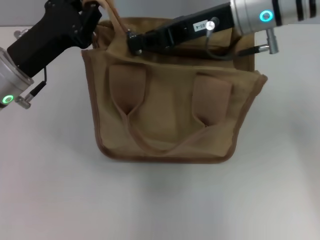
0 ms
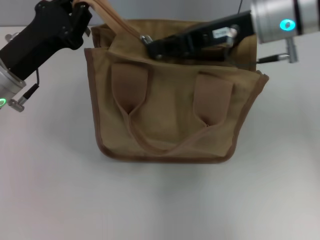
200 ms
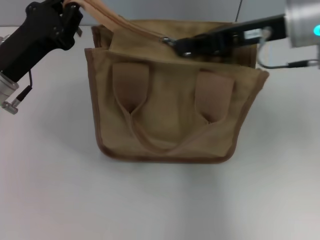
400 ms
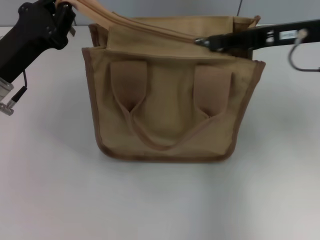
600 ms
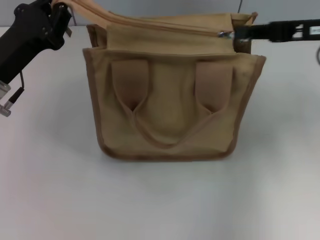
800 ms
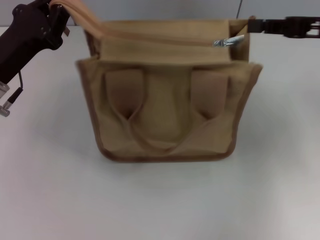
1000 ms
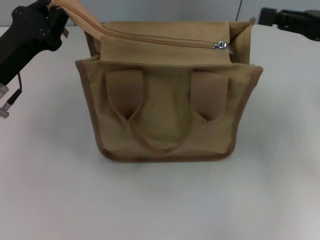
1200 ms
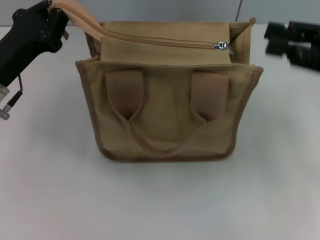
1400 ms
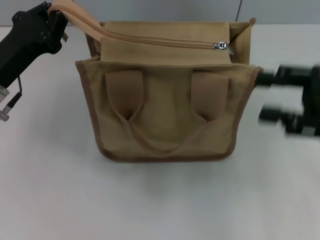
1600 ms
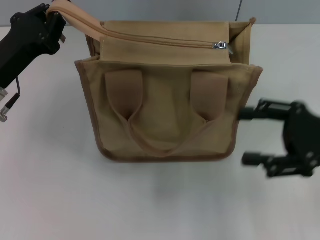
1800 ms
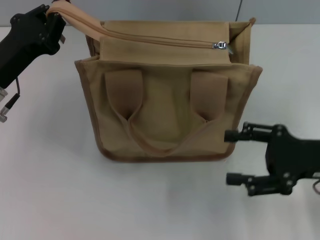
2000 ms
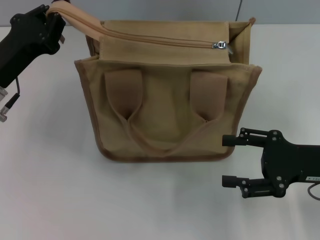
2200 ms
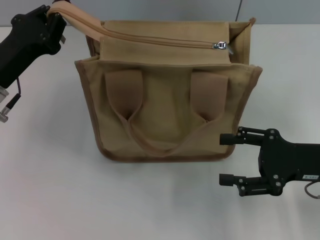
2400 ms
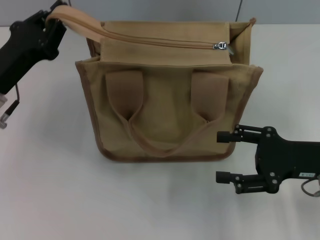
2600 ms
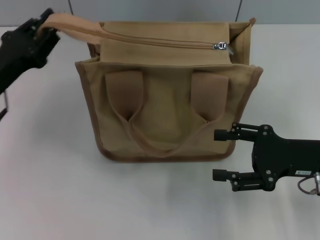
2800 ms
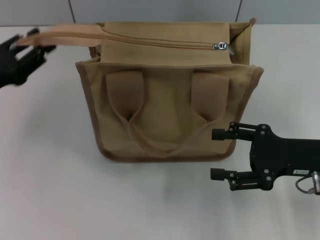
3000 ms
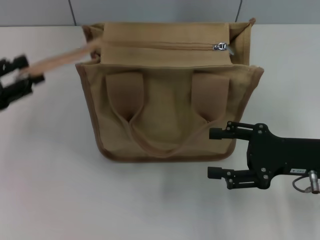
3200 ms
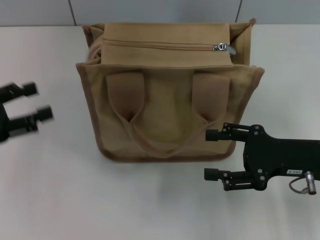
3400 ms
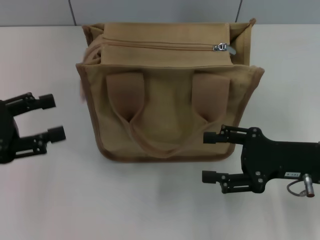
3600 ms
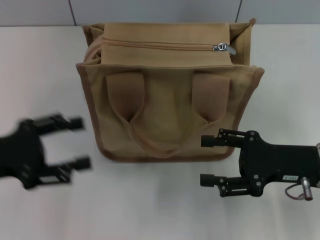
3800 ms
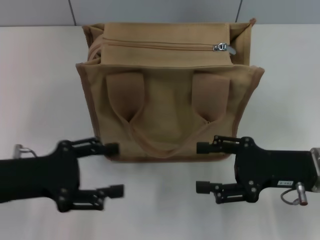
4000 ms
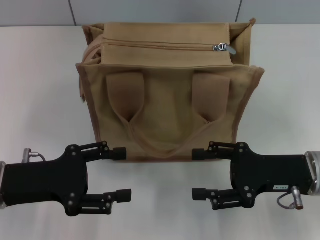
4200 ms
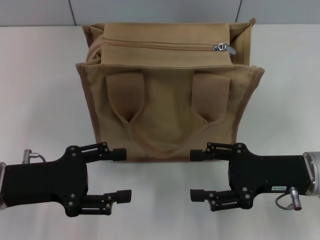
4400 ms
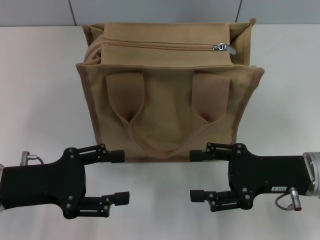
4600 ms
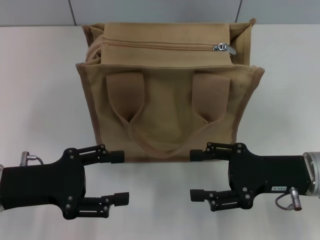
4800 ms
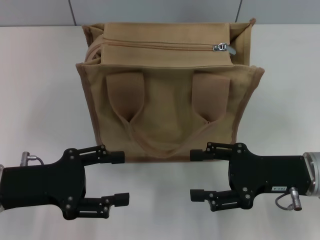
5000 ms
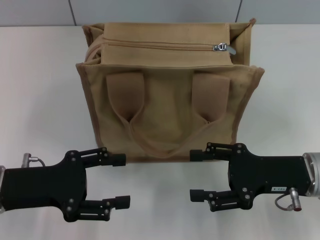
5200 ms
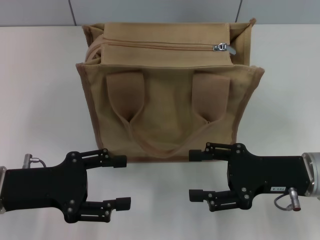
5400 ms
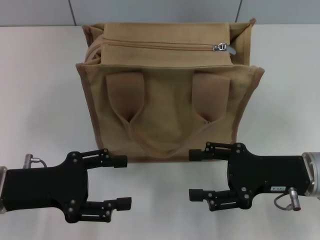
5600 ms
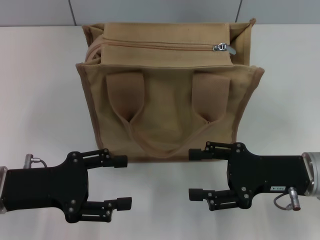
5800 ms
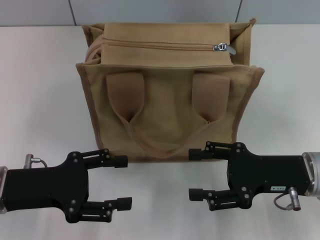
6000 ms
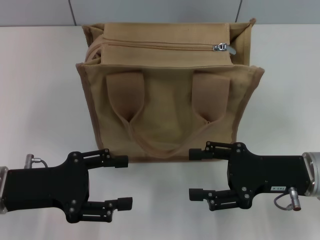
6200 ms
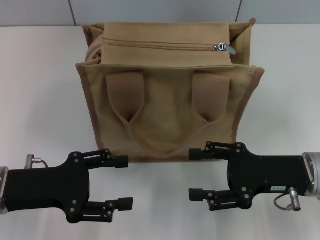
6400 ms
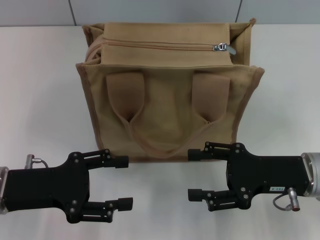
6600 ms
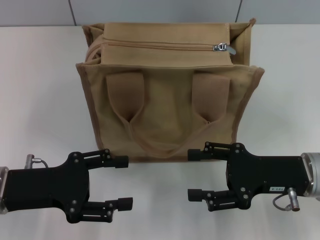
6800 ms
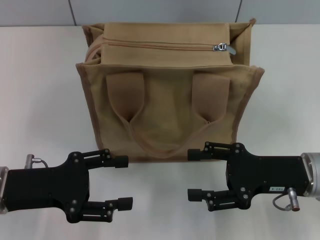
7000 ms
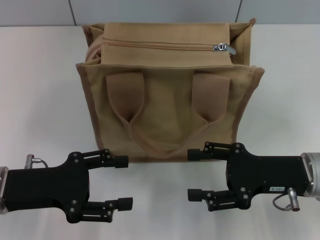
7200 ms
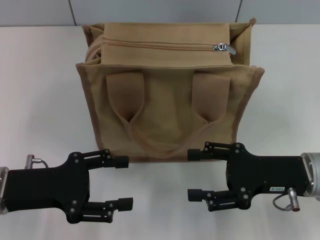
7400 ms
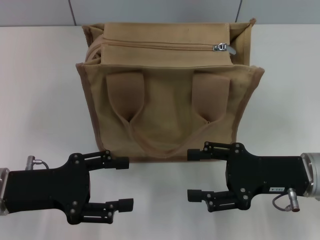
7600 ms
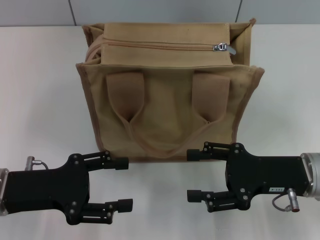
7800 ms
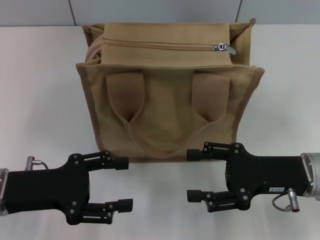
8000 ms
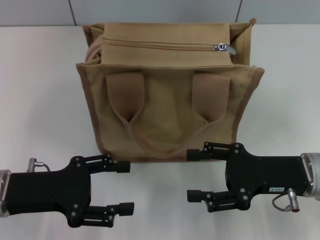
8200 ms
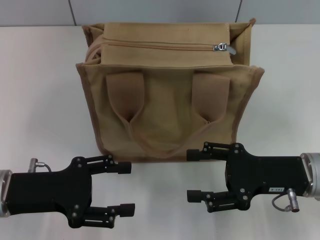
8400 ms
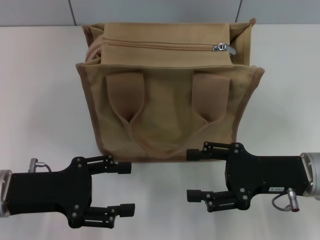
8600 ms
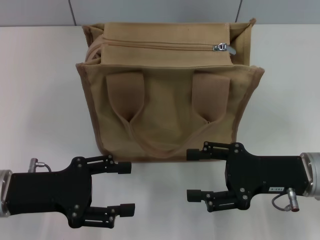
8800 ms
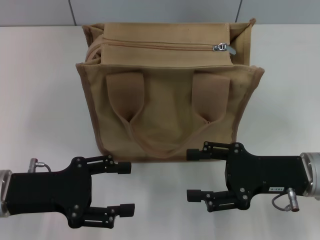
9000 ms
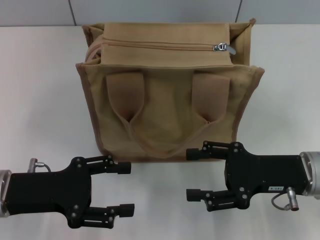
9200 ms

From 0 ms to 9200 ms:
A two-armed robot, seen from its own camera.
Step, from 1200 ms to 3200 ms: Grab the zipper with your left hand.
From 0 ms to 1600 ms: The right gripper goes approximately 20 cm to the right and backward, and opens its fingers.
From 1600 ms to 3000 ms: The left gripper is displaced to the left by approximately 5 cm. Meanwhile the right gripper goes roughly 5 cm downward, and opens its fingers.
From 3000 ms to 4600 ms: The left gripper heads backward and to the right, covering roughly 10 cm, and opens.
From 4600 ms to 9200 ms: Neither gripper changes place.

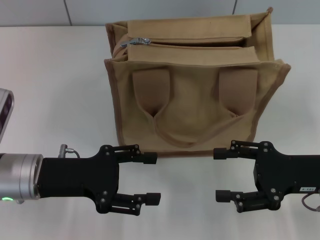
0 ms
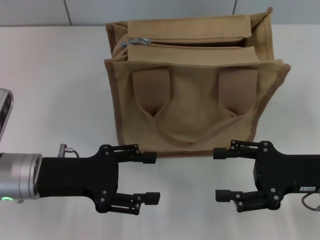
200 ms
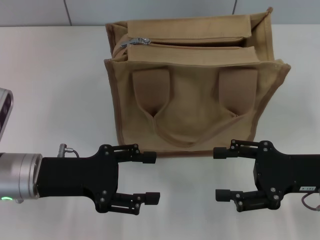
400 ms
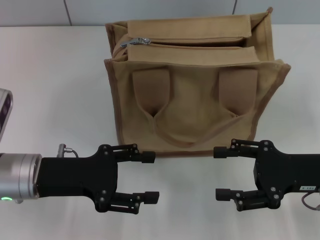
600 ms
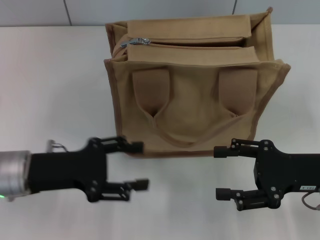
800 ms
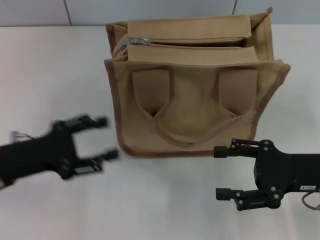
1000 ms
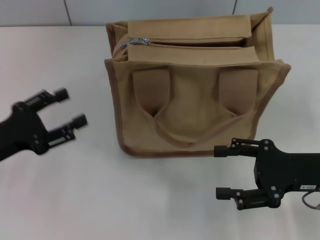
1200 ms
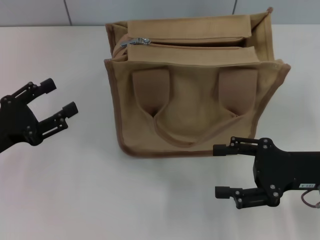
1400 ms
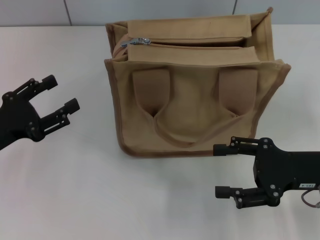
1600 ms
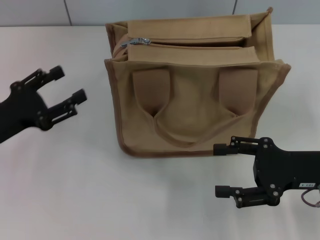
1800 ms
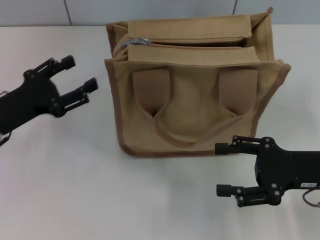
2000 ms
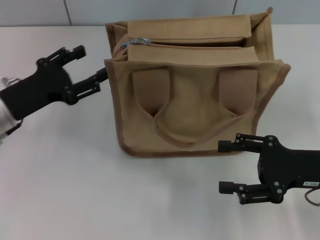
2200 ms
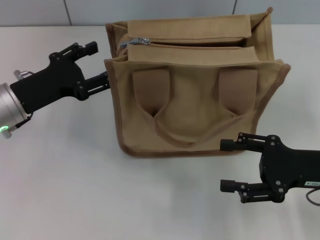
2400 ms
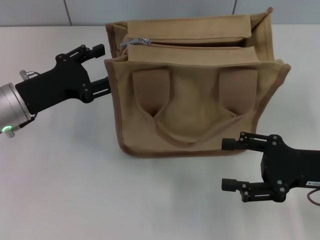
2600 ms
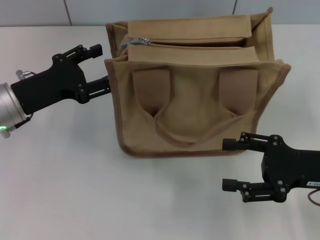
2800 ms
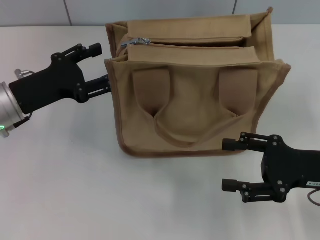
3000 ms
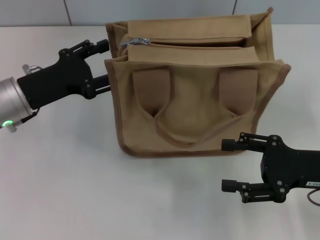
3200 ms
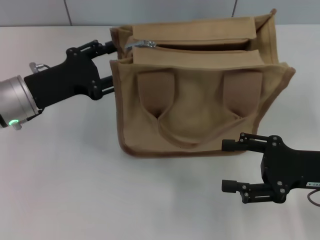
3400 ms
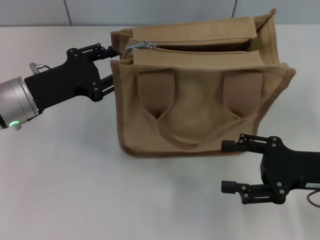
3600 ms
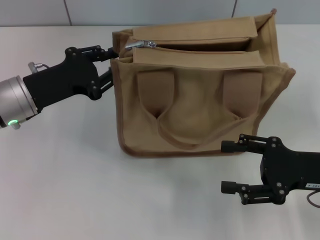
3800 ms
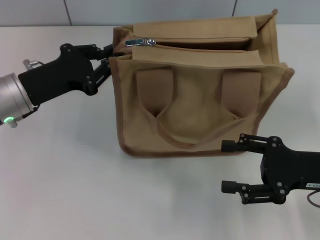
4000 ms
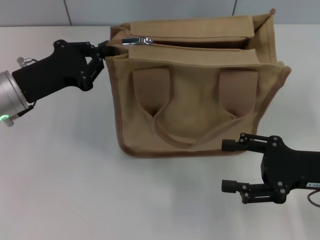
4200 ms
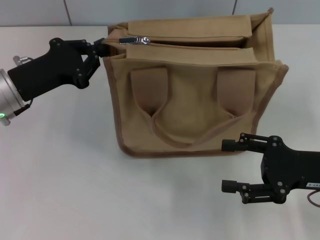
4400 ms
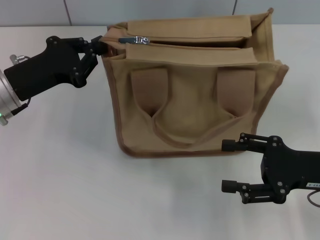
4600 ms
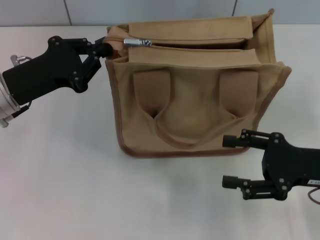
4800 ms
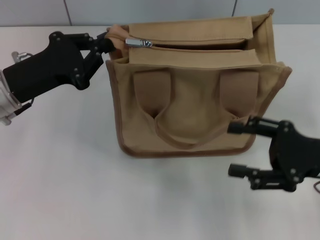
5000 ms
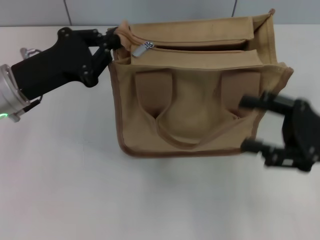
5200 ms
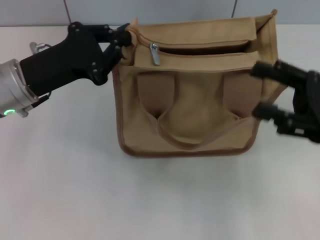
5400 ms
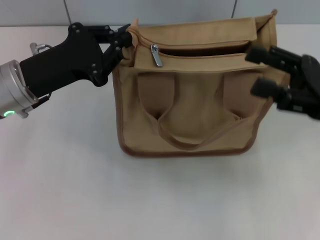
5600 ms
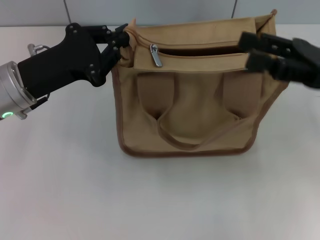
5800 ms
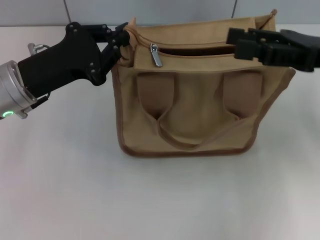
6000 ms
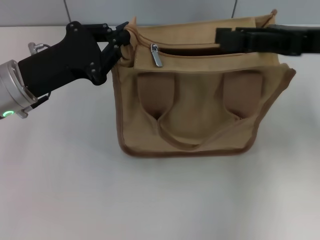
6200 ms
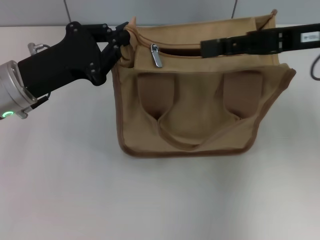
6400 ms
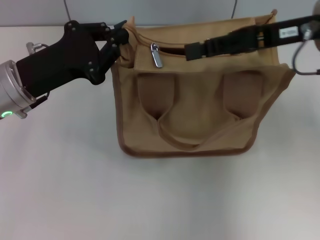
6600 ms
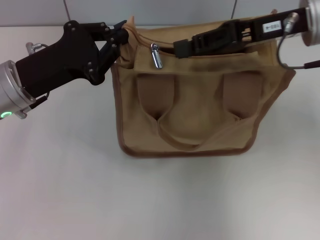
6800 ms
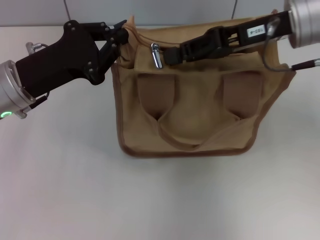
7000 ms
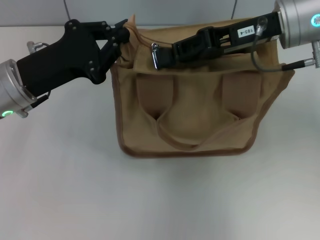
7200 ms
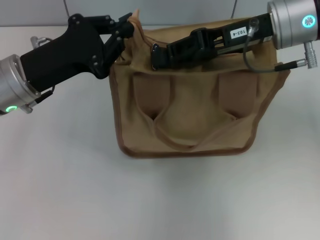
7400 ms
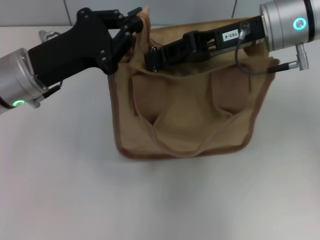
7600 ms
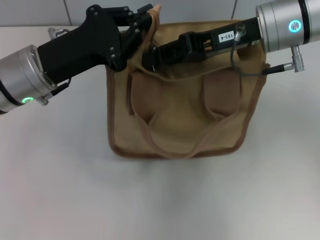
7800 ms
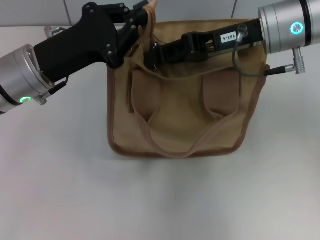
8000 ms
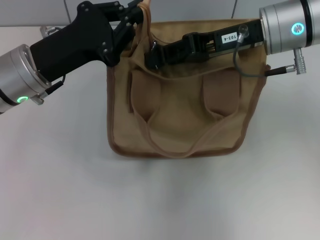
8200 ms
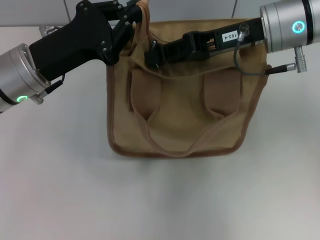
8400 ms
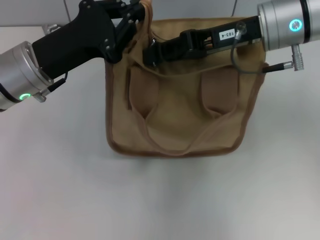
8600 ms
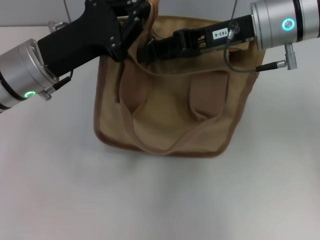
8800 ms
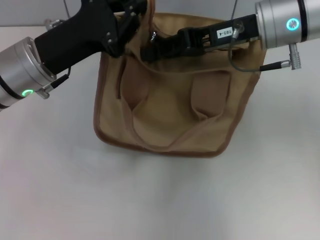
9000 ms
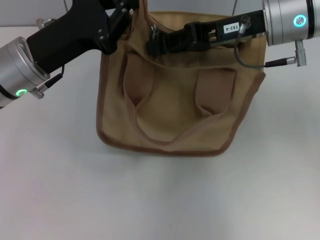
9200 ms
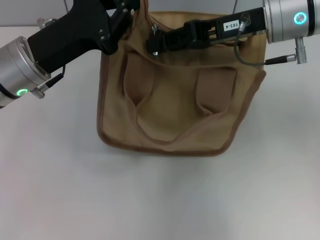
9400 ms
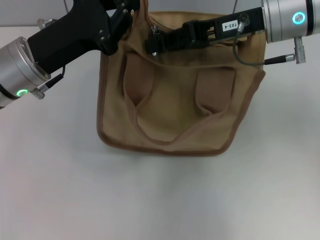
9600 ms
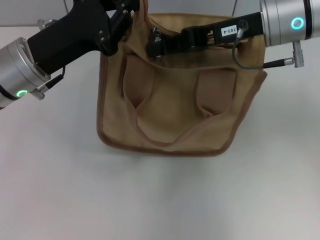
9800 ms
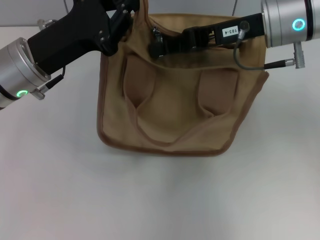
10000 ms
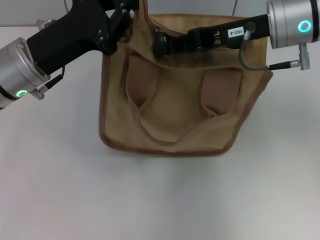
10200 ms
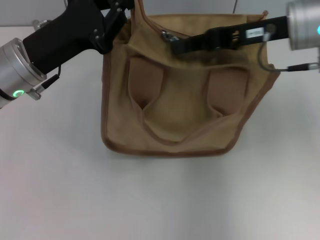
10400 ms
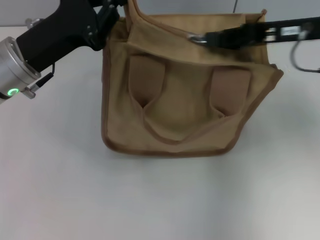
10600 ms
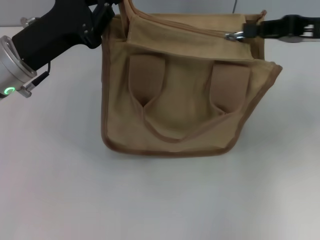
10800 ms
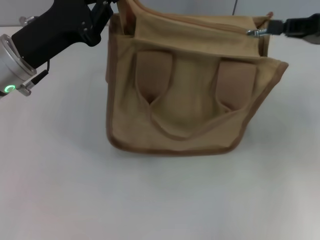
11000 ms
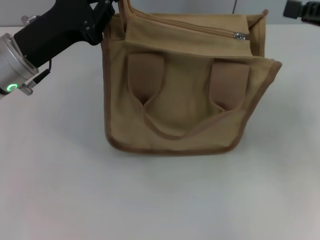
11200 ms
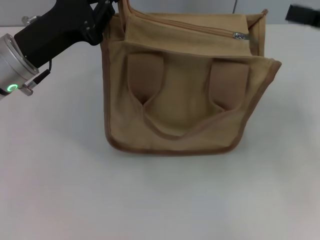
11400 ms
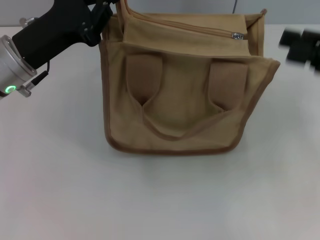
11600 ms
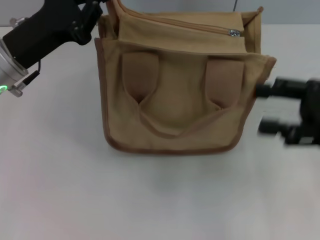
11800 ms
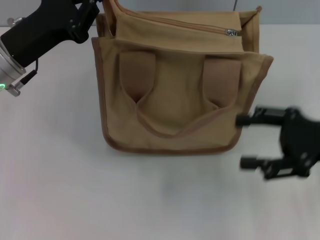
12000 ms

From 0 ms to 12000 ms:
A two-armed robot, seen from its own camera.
Step, from 0 ms to 11000 ms: Pull up the zipper with your right hand.
From 0 ms to 1600 ms: The left gripper heads to the left, covering about 10 cm.
From 1600 ms to 3000 ms: The left gripper shifts roughly 10 cm forward and to the right.
From 3000 ms to 4400 ms: The left gripper closes its fingers.
From 4400 ms to 6000 ms: The right gripper shifts about 15 cm upward and forward.
From 6000 ms to 7600 ms: The right gripper goes roughly 10 cm to the left and forward, and closes its fingers.
From 7600 ms to 9000 ms: Both grippers stay about where they are.
From 9000 ms to 10400 ms: The grippers move only a little.
From 10400 ms to 12000 ms: The right gripper goes approximately 15 cm backward, to the right and downward, and opens.

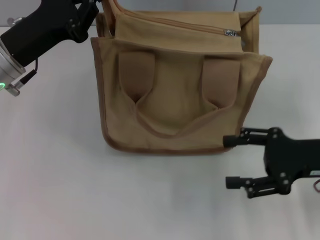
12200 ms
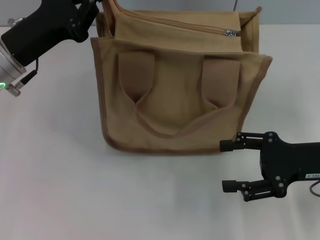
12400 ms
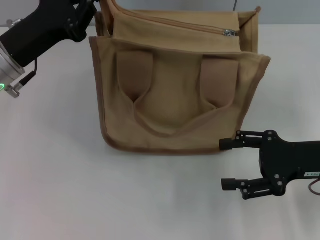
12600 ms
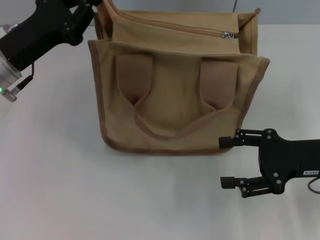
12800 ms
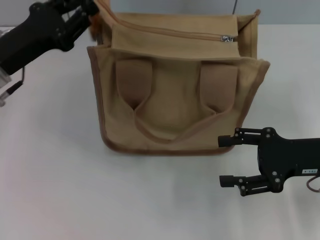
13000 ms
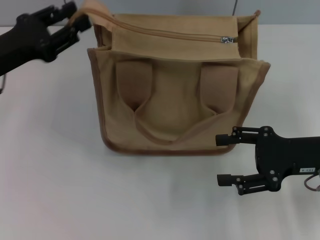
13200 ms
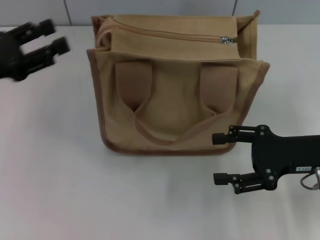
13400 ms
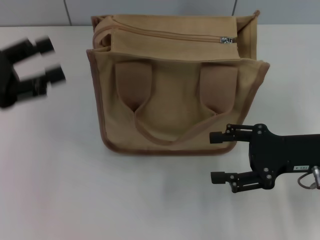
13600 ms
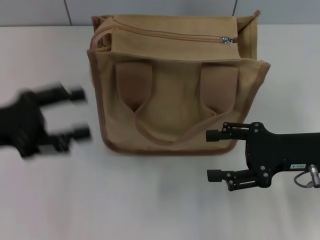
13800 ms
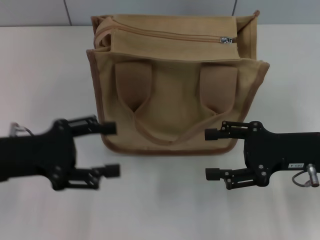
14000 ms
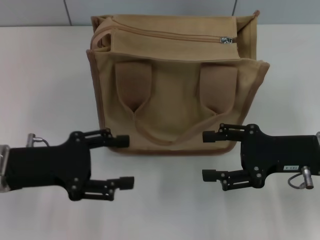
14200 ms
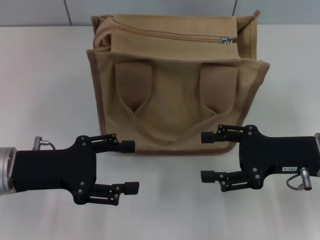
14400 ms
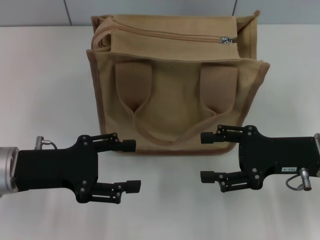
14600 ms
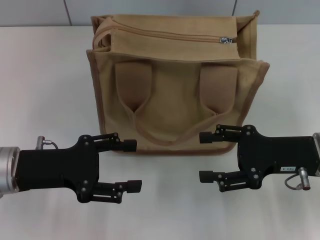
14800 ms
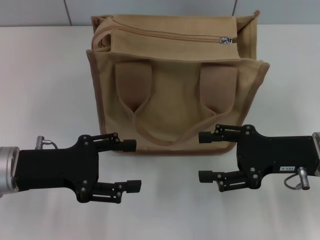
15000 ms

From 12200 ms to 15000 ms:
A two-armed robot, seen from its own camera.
From 12200 ms to 13600 ms: The left gripper shifts approximately 10 cm to the left and backward, and opens its fingers.
From 13600 ms to 15000 ms: The left gripper heads to the right and downward, covering about 10 cm.
